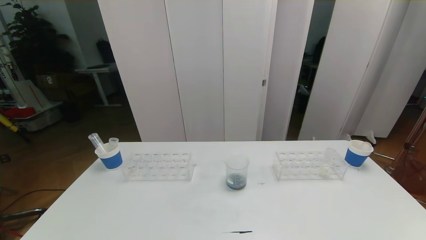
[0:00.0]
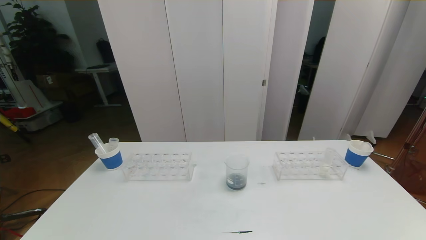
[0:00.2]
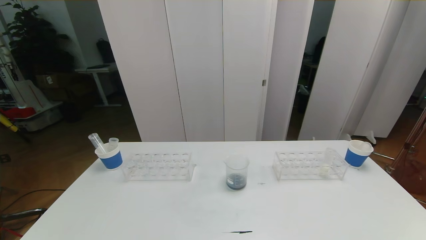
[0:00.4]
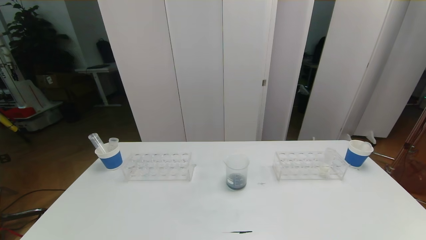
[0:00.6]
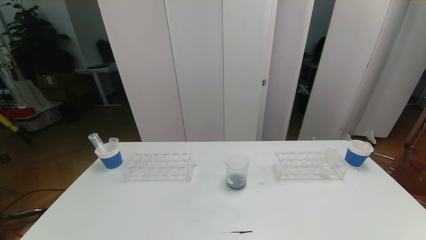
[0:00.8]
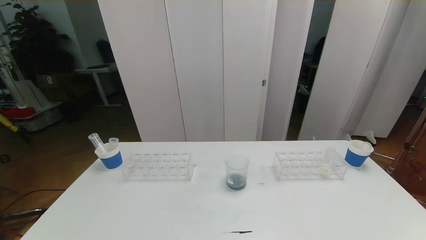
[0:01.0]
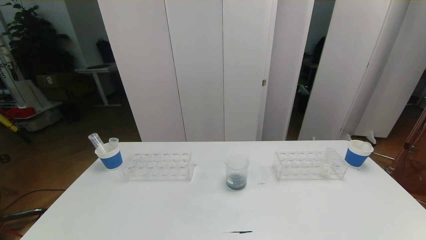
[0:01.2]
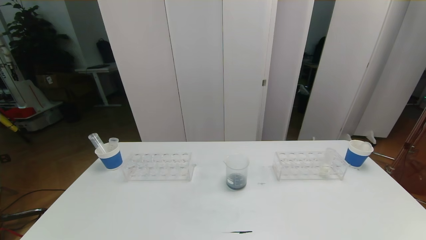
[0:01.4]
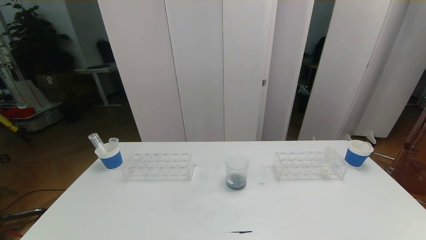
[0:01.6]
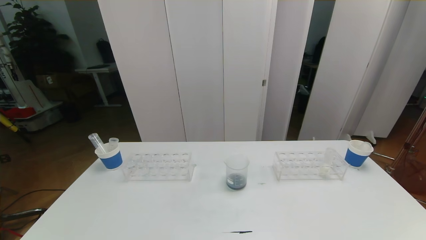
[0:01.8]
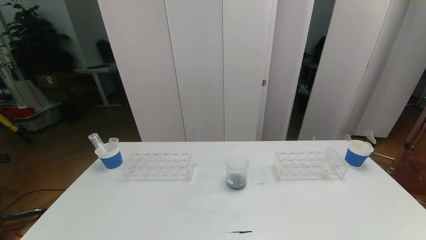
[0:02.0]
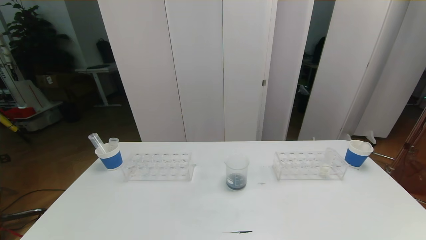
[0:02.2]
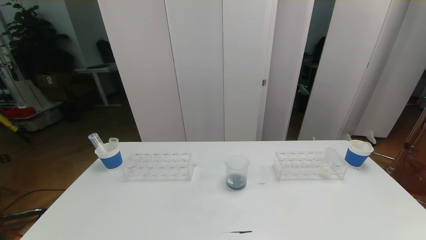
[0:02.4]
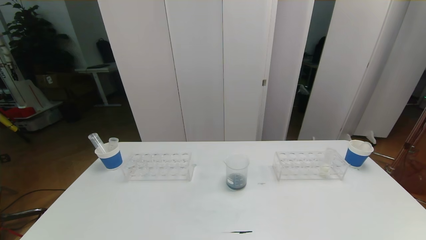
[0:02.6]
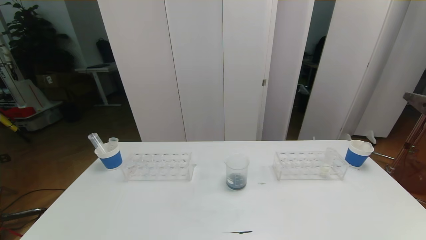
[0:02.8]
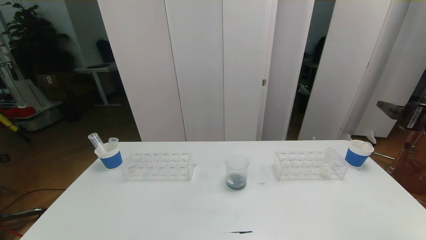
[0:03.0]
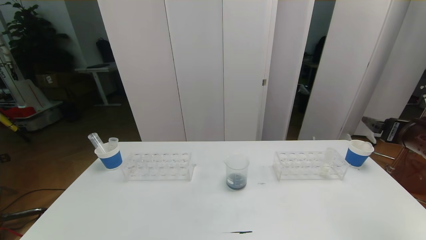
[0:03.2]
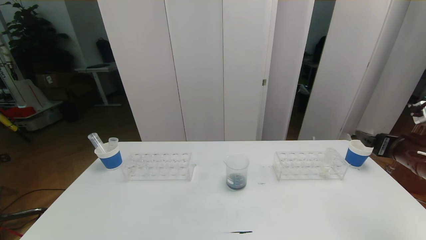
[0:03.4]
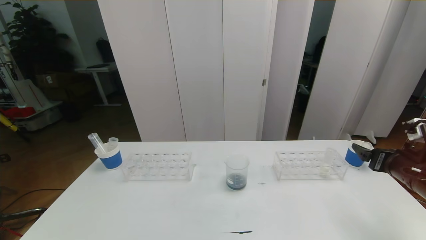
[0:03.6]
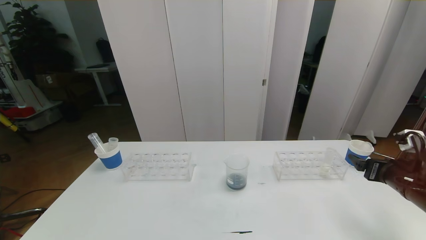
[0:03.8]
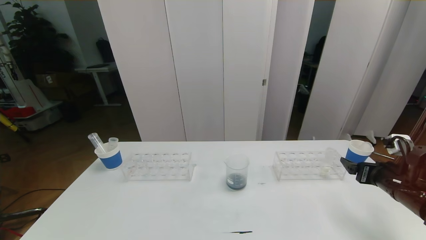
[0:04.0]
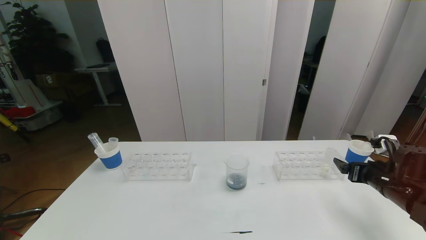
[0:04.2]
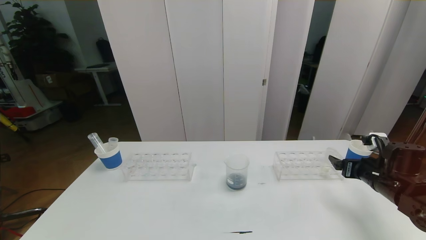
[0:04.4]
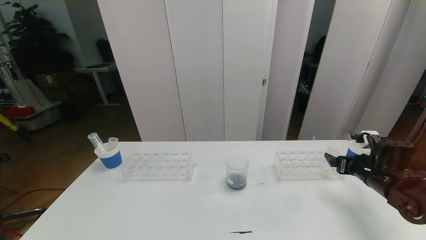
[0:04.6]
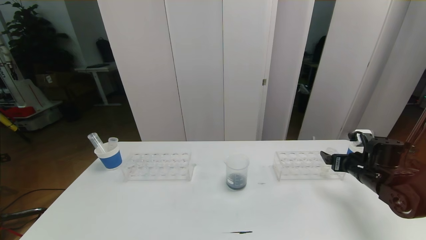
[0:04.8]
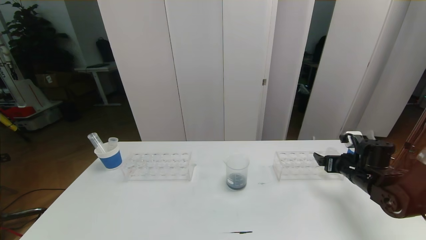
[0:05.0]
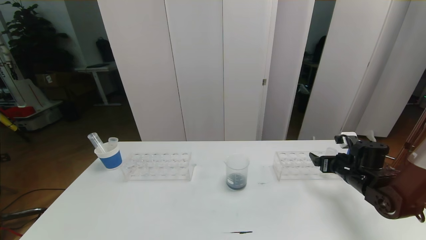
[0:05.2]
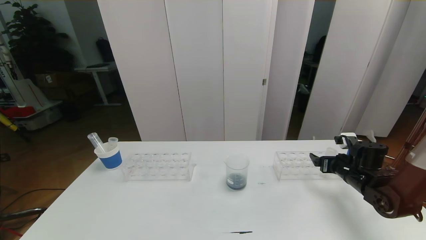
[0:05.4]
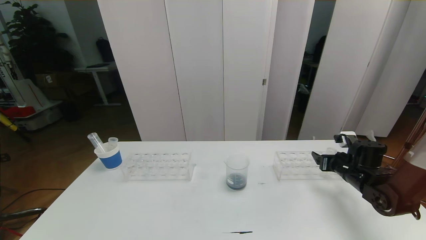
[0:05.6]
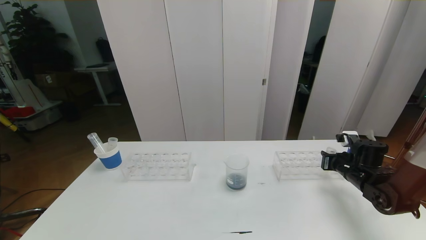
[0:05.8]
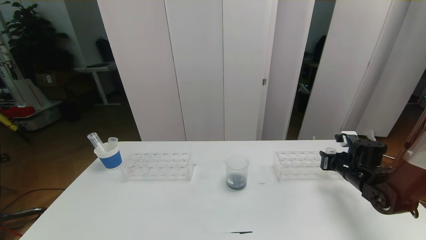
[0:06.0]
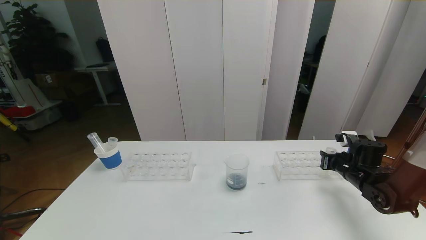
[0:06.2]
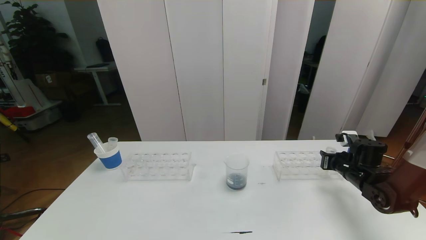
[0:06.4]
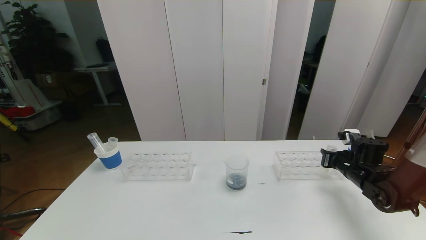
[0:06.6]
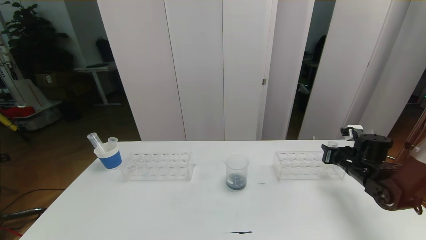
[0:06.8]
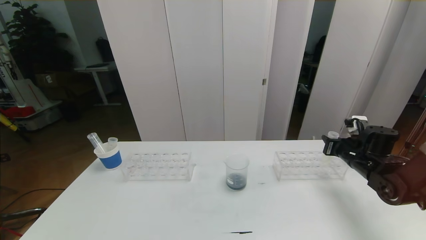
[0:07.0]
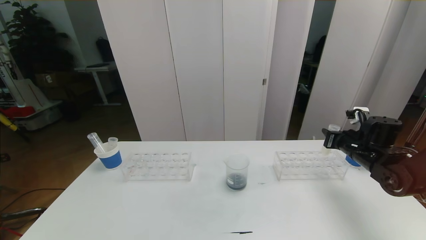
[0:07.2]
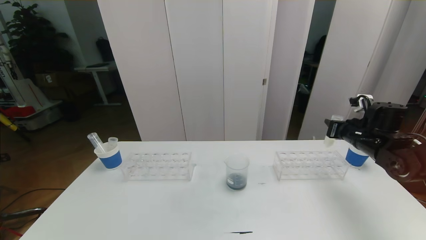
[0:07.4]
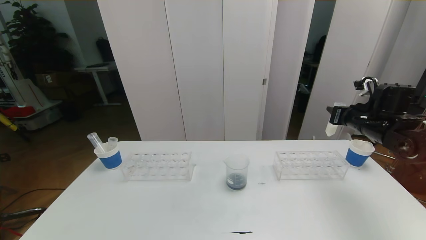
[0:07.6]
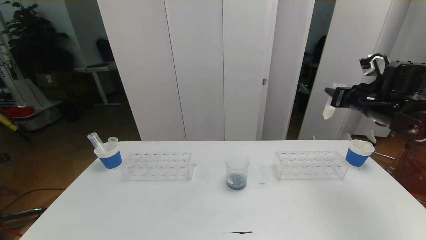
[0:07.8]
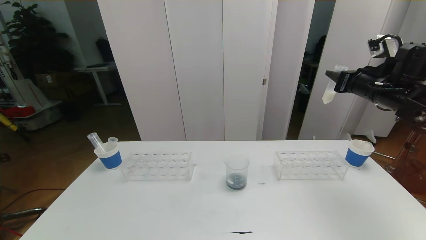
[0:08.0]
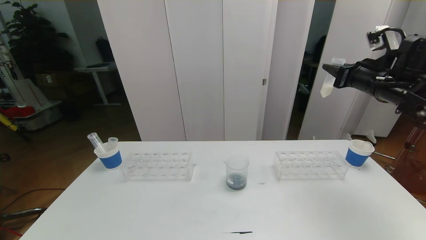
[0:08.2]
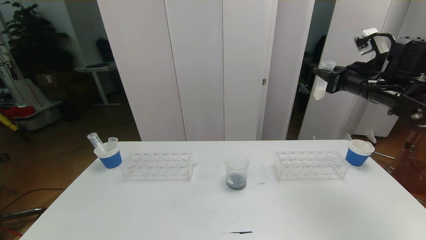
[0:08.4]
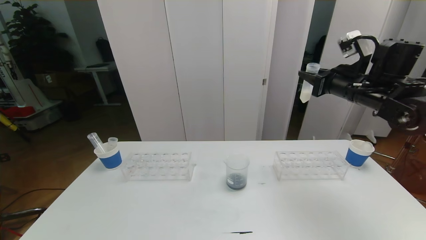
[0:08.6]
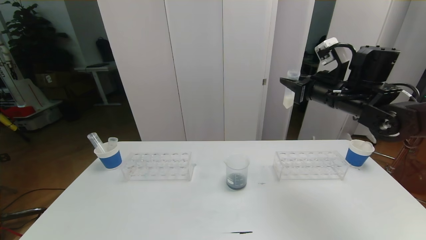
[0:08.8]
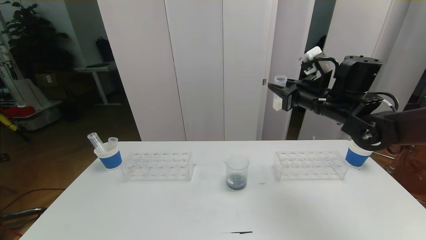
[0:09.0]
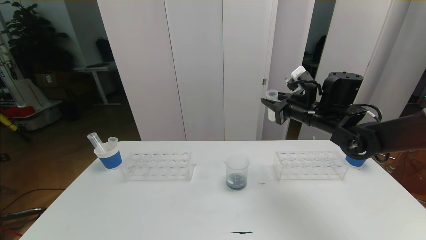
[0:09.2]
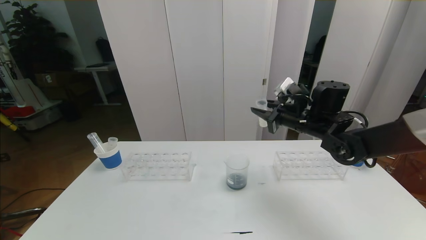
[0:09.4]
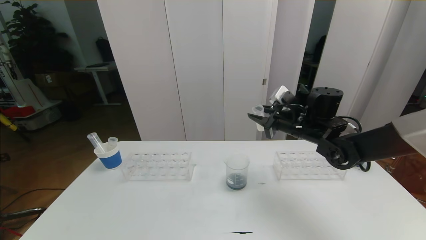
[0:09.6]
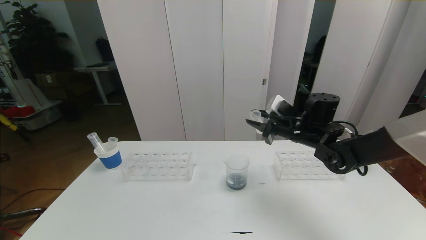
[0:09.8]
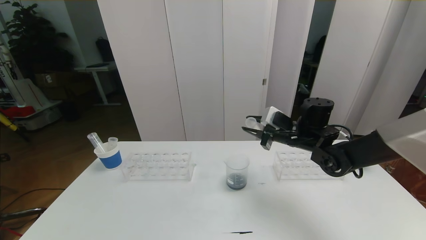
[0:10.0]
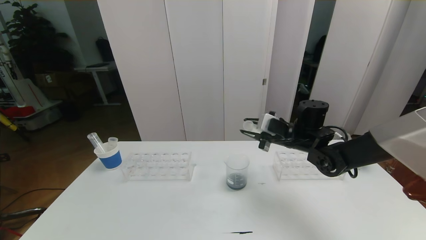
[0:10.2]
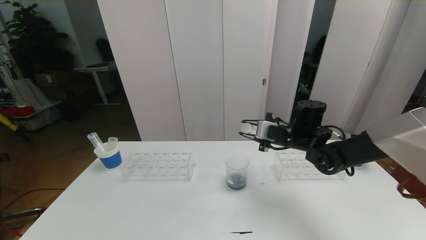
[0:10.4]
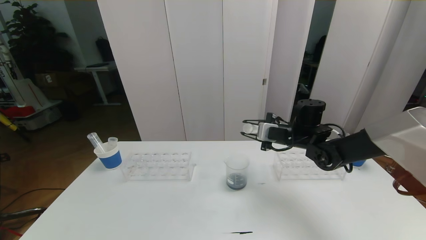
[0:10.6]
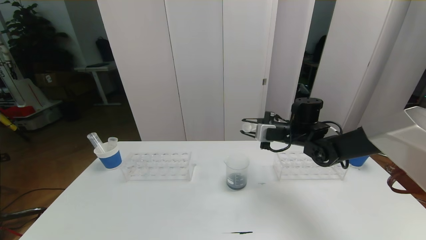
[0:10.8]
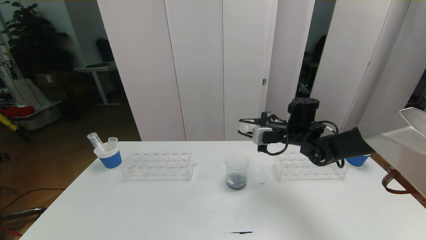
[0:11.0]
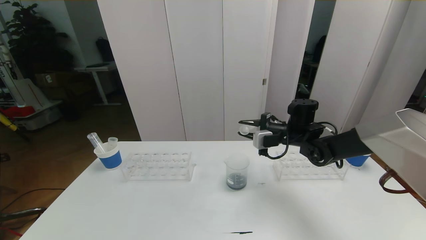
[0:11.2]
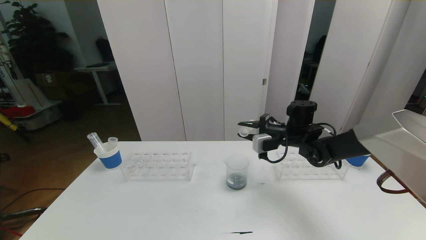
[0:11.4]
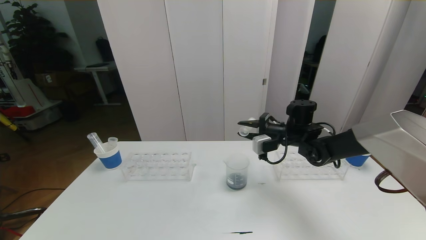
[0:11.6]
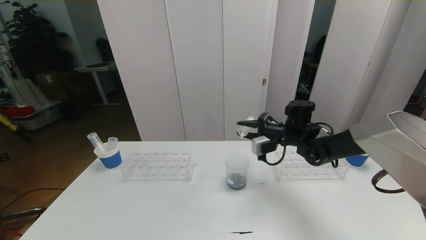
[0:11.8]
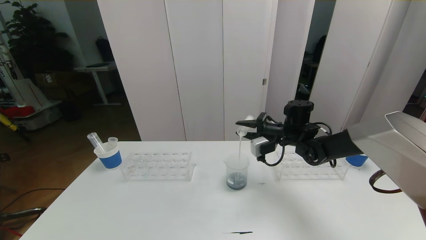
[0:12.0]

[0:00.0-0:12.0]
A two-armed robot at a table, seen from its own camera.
Task of the whole recording: pick up the test tube with red pigment the test tube with blue pigment and the test tube with white pigment by grippers and pour them into the beaker.
0:03.0 to 0:04.4: The right gripper travels downward by approximately 15 cm.
0:04.4 to 0:06.0: The right gripper travels forward by about 5 cm, and closes.
0:06.0 to 0:07.6: The right gripper is displaced upward by approximately 15 cm.
0:07.6 to 0:09.0: The right gripper travels to the left by roughly 10 cm.
0:09.0 to 0:10.4: The right gripper shifts approximately 10 cm downward.

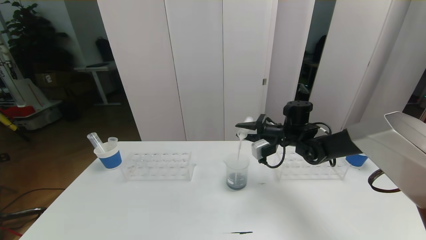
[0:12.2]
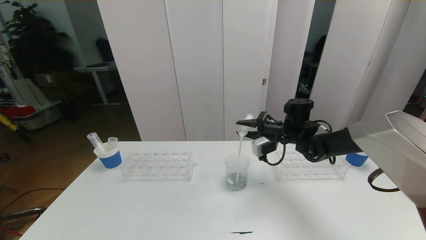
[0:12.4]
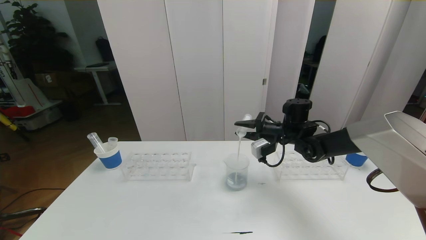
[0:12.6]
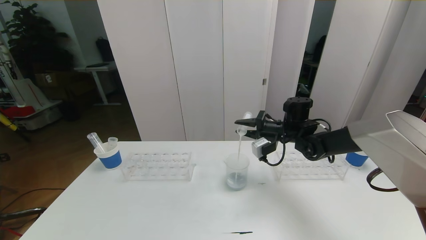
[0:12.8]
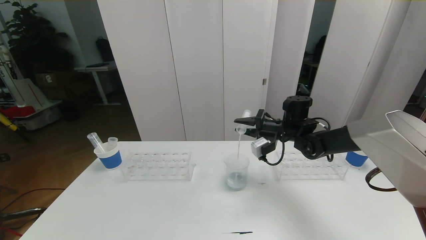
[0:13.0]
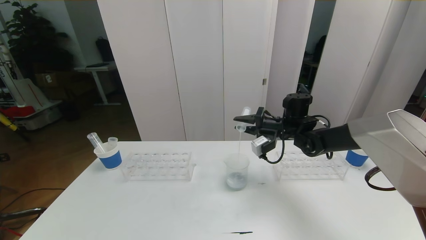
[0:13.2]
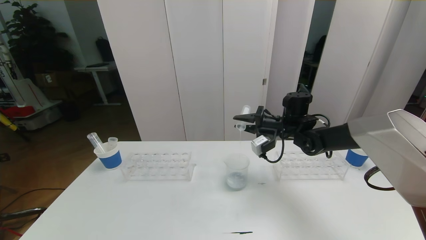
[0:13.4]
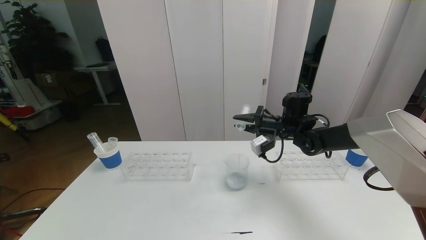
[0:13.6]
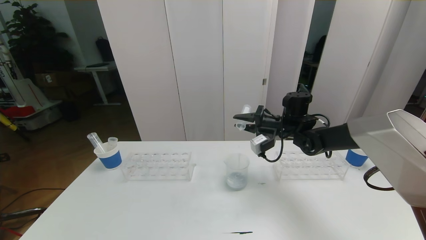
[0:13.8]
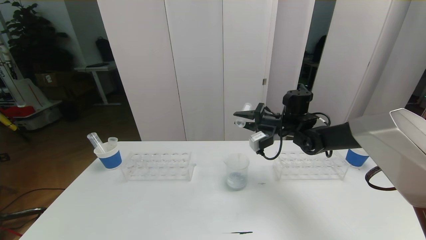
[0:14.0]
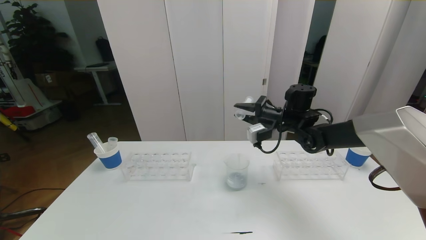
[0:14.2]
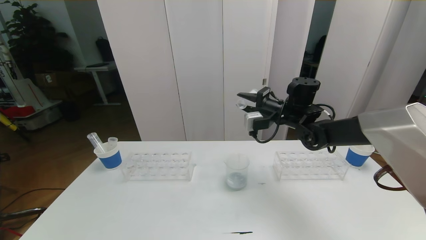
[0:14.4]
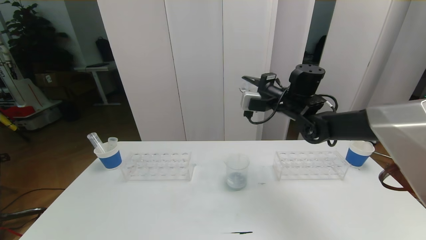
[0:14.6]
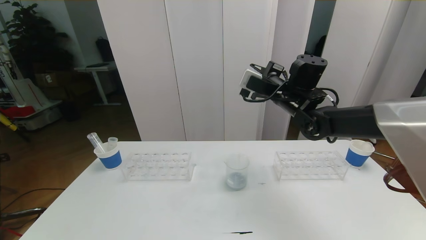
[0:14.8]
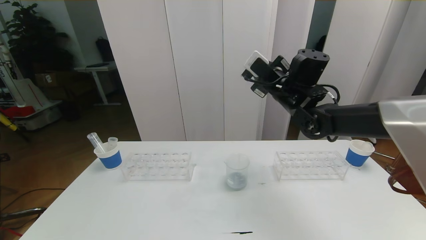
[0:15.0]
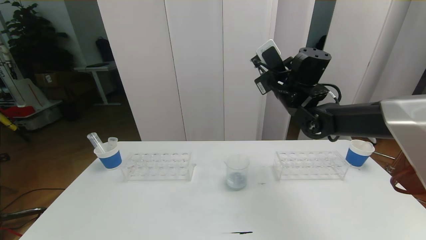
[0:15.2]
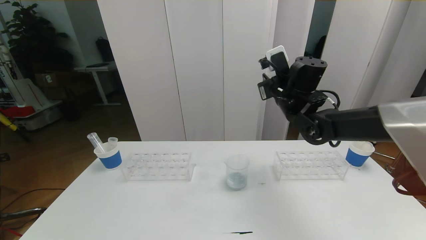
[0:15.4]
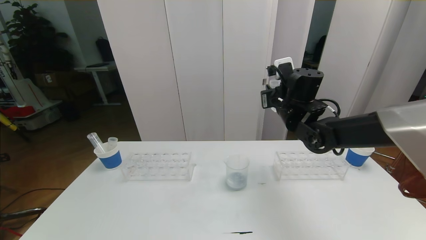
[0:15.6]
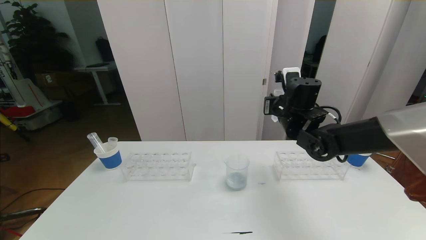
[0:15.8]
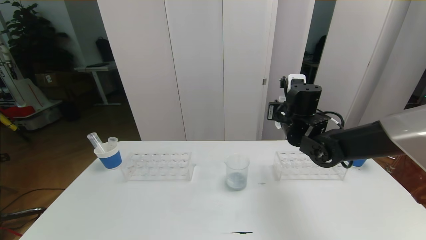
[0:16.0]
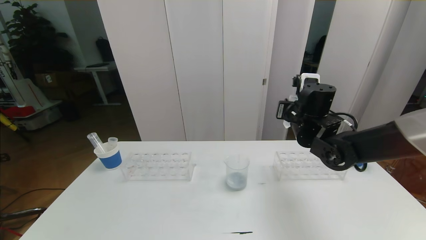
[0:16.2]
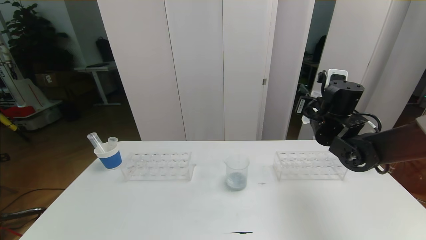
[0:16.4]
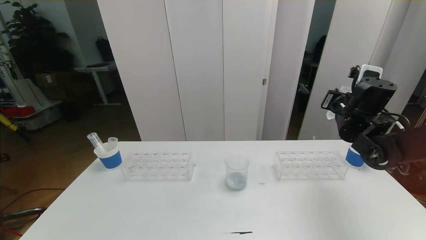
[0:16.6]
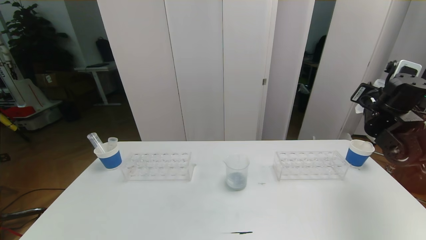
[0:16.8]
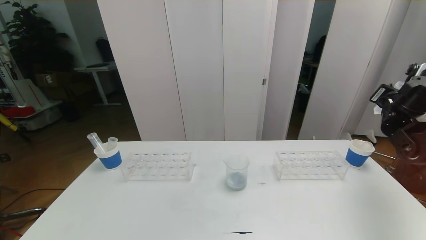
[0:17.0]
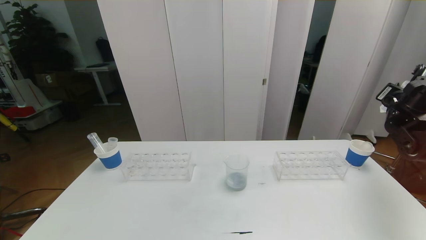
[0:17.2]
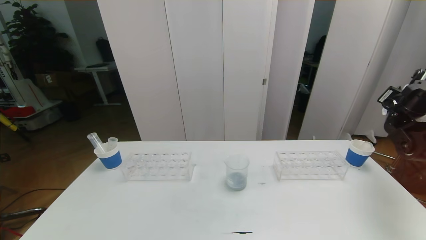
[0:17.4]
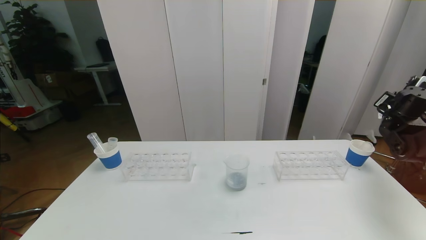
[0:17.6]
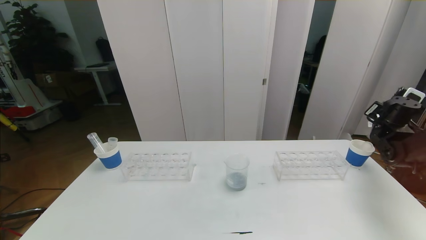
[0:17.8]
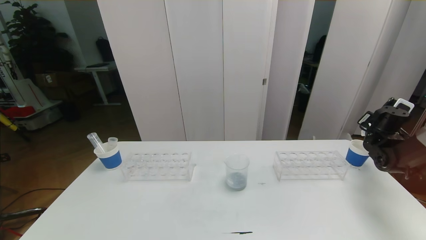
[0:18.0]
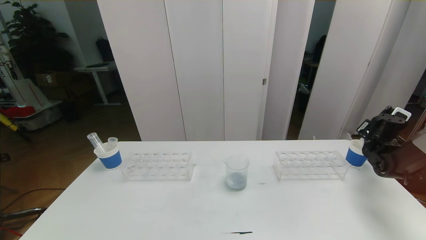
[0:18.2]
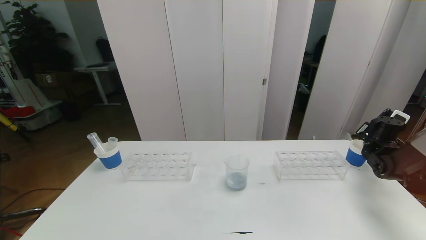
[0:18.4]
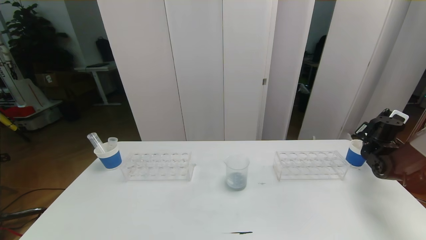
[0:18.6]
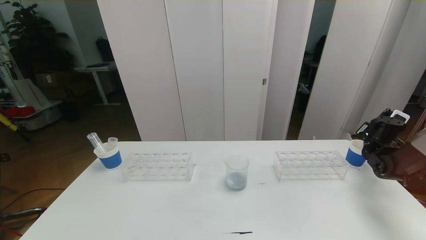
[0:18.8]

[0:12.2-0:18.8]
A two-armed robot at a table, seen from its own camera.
Task of the whole recording: pick up the test tube with red pigment the test tube with blue pigment and the test tube with white pigment by grippers and pour them into the beaker.
0:12.2 to 0:13.8: The grippers stay close to where they were, moving slightly.
0:13.8 to 0:15.4: The right gripper heads upward, covering some 10 cm.
0:15.4 to 0:17.2: The right gripper is displaced to the right by approximately 25 cm.
0:17.2 to 0:18.8: The right gripper is displaced downward by about 15 cm.
